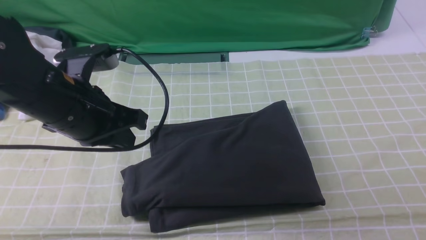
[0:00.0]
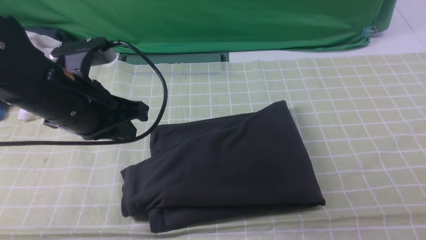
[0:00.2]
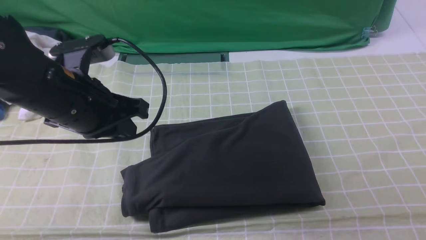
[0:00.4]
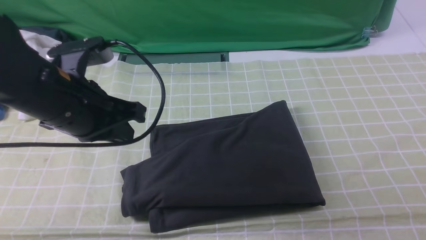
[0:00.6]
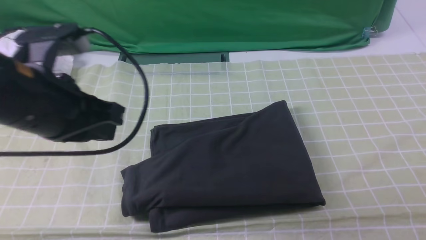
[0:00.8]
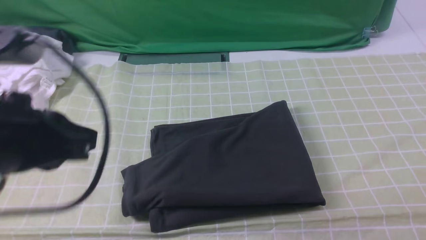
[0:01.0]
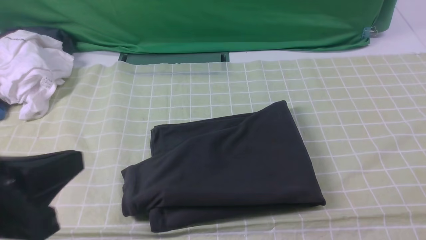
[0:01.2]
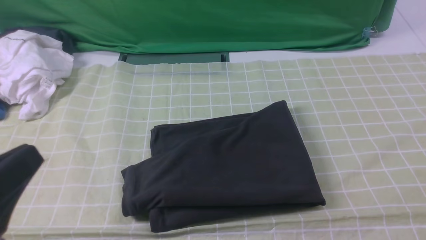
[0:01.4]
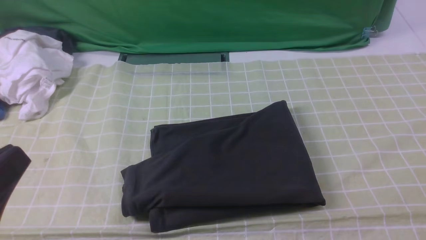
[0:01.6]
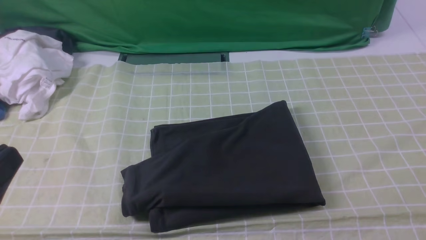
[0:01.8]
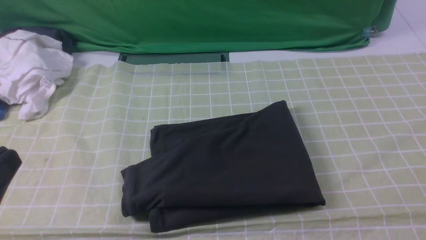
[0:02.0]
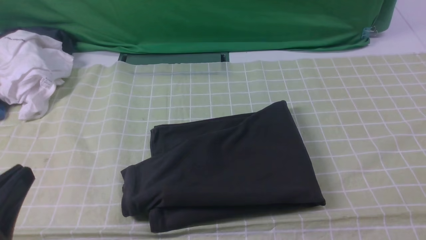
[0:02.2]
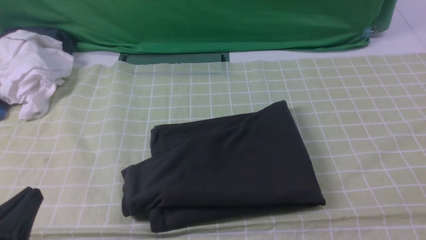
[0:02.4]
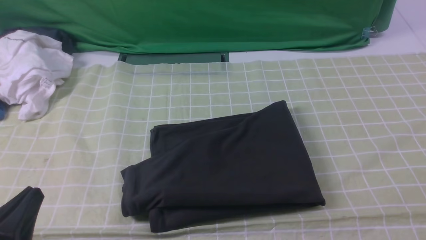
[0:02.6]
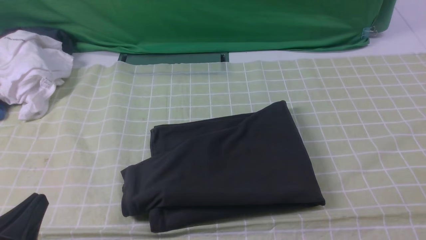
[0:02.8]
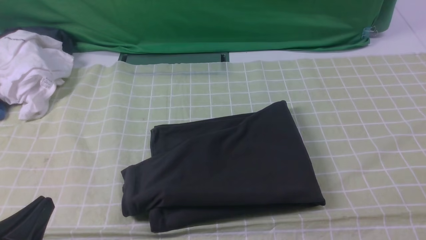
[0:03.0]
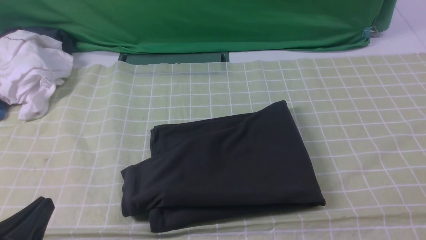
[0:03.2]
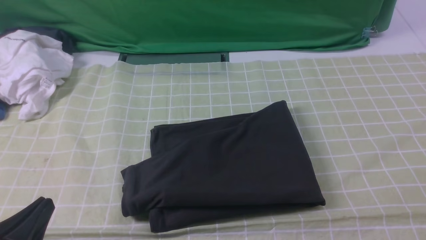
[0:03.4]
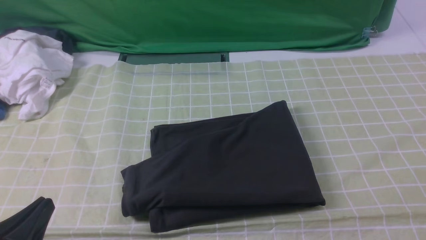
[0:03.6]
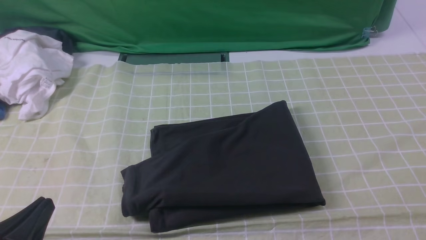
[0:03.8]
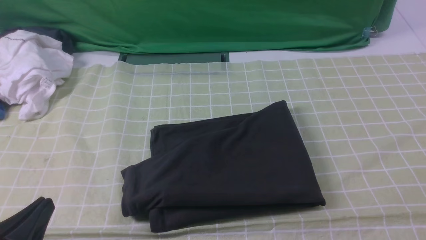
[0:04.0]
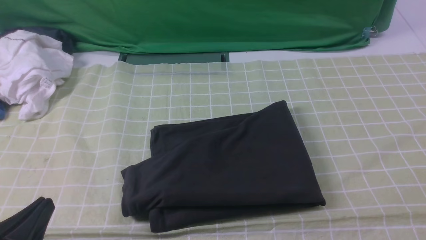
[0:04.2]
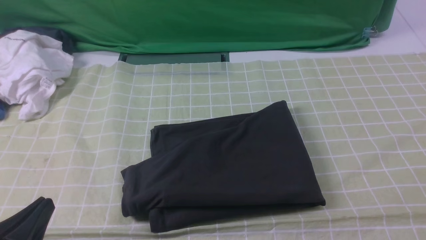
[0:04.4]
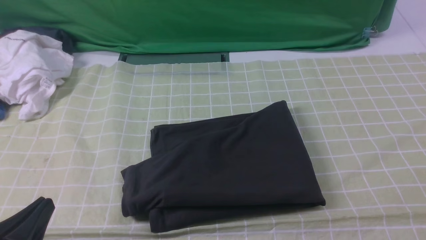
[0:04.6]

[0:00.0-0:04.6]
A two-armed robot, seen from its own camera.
0:00.0 to 0:01.6: The left gripper is displaced backward by approximately 20 cm.
0:01.6 to 0:03.0: The left gripper heads downward, covering some 10 cm.
0:03.0 to 0:04.6: The two grippers keep their place.
